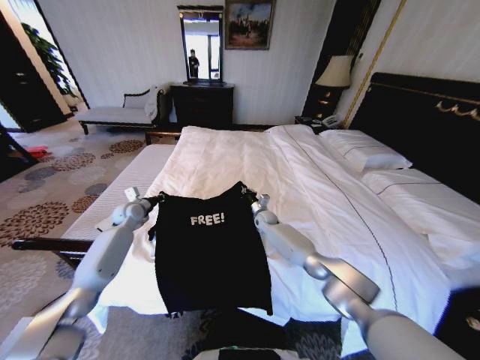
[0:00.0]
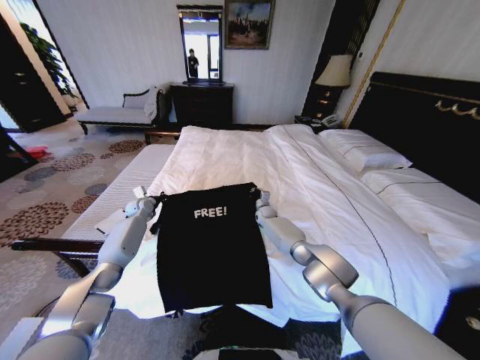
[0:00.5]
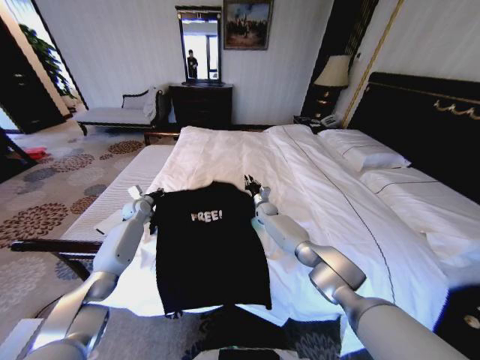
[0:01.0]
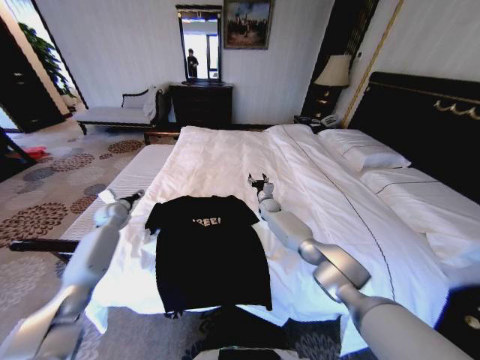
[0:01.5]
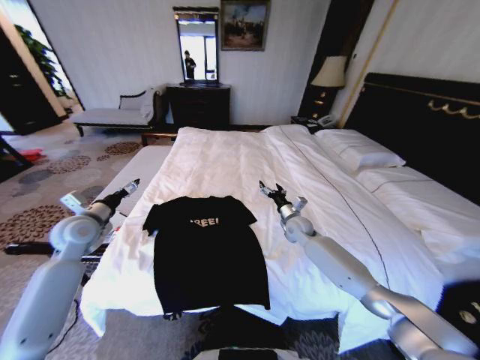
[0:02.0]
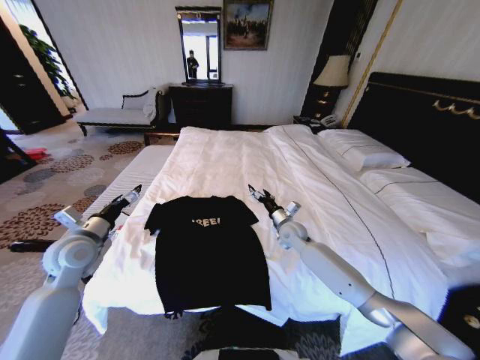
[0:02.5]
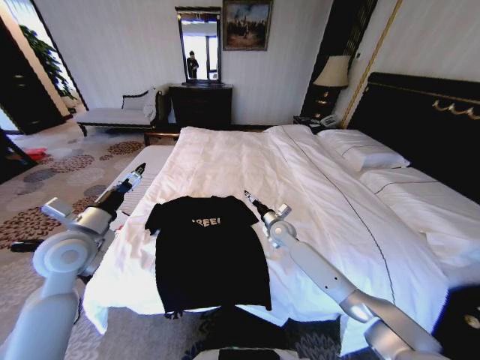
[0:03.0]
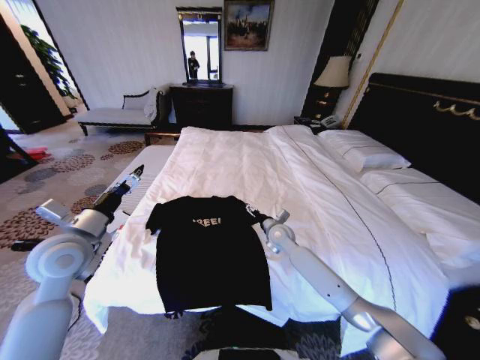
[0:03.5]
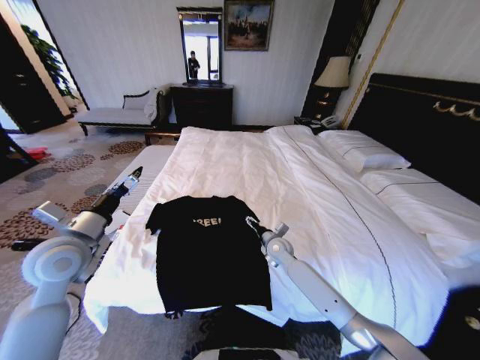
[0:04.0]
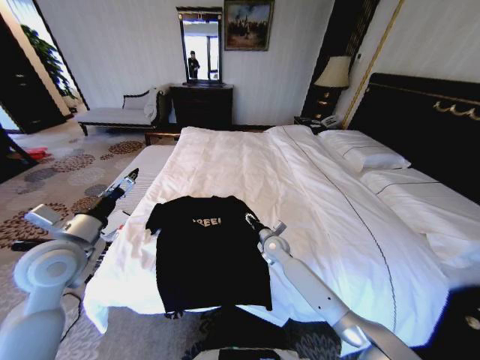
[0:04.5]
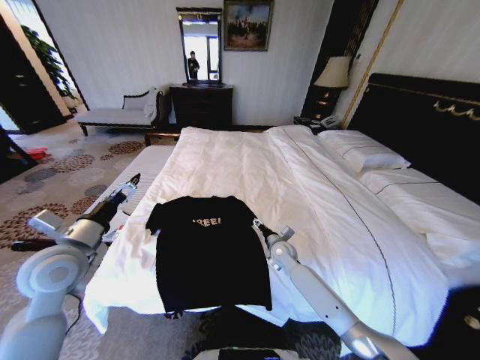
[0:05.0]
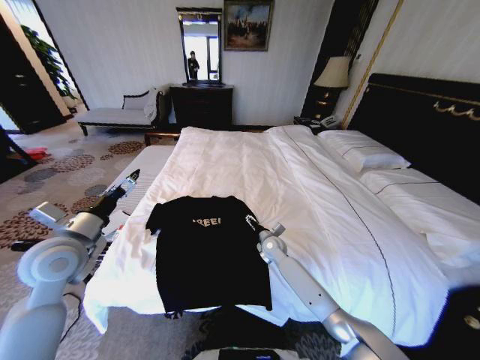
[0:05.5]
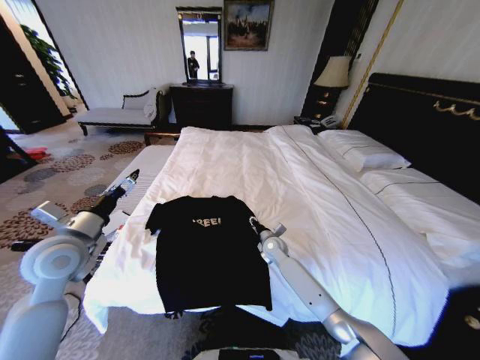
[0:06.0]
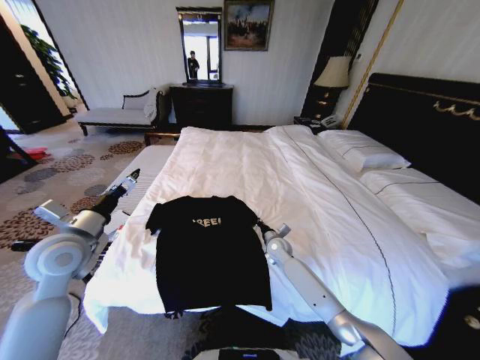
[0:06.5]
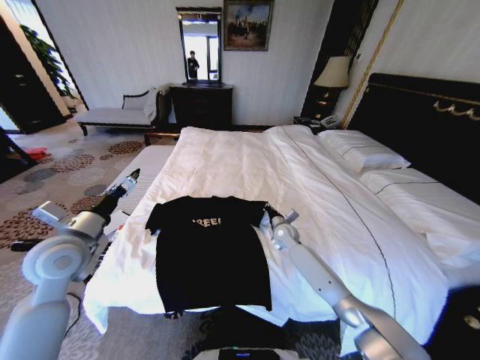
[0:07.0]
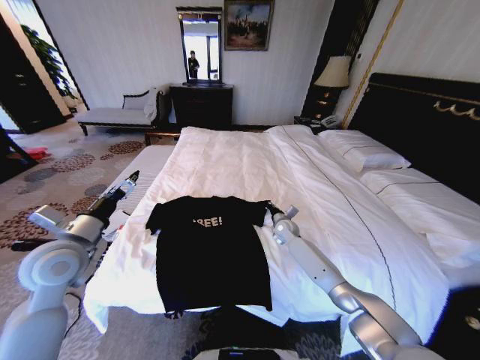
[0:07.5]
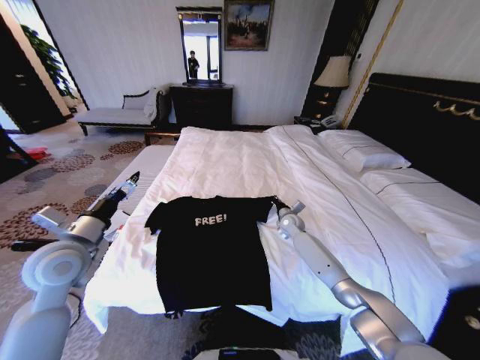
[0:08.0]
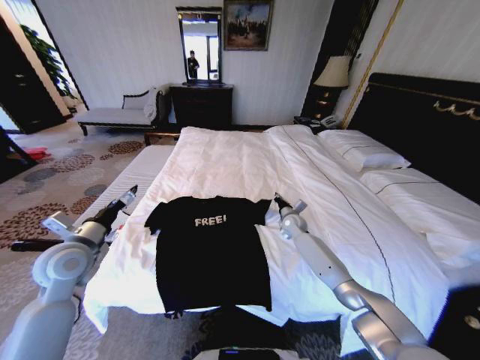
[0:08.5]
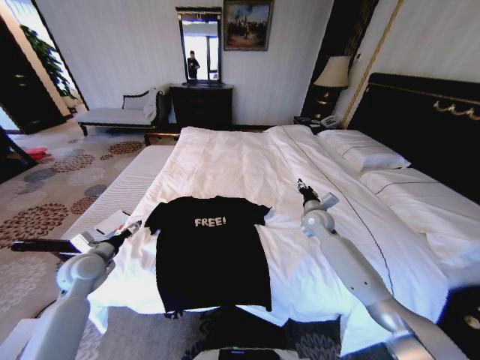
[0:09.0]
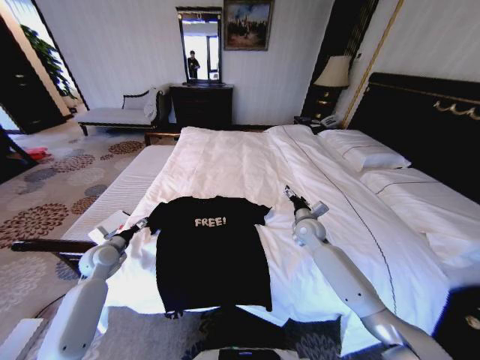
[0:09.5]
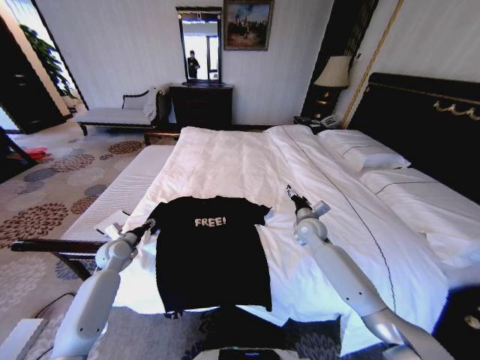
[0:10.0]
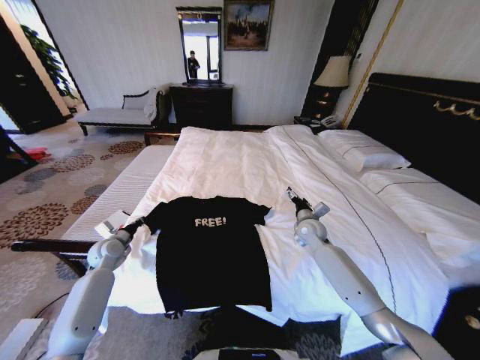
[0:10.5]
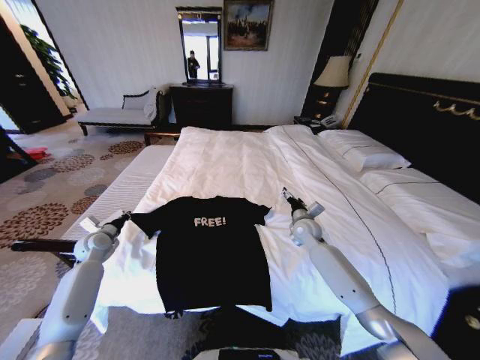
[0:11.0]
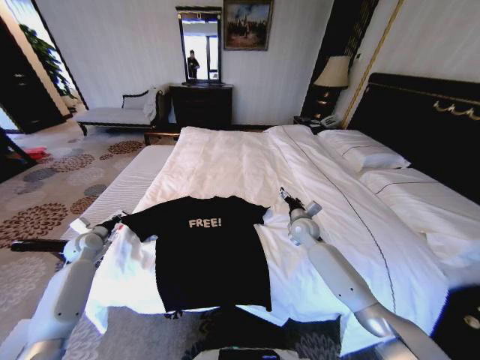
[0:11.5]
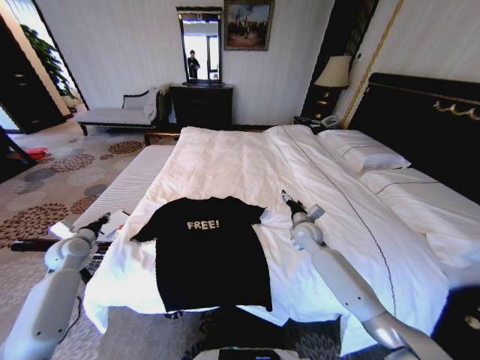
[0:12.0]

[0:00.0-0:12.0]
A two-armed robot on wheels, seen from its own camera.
Task of the whole recording: Fold the clothes on the bed.
0:00.0 to 0:02.0: The right gripper is displaced to the right, backward and upward by approximately 15 cm, and opens its fingers. The left gripper heads backward and upward, covering approximately 15 cm, and opens its fingers.
0:02.0 to 0:04.0: The left gripper heads backward and to the right, covering roughly 10 cm. The right gripper travels to the left, backward and downward by about 10 cm.
0:04.0 to 0:06.0: The right gripper closes.
0:06.0 to 0:08.0: The right gripper is displaced forward and to the right by approximately 10 cm, and closes up.
0:08.0 to 0:10.0: The right gripper heads backward and upward, covering about 10 cm, and opens, while the left gripper travels downward and forward by about 20 cm.
0:10.0 to 0:12.0: The left gripper heads to the left, covering roughly 10 cm, and closes up.

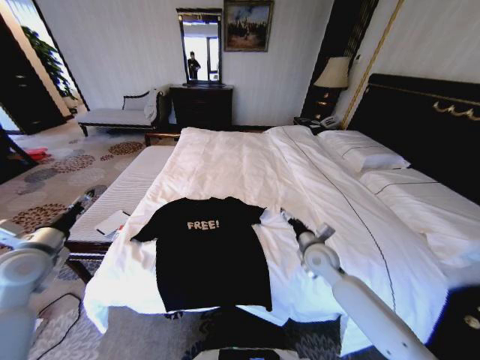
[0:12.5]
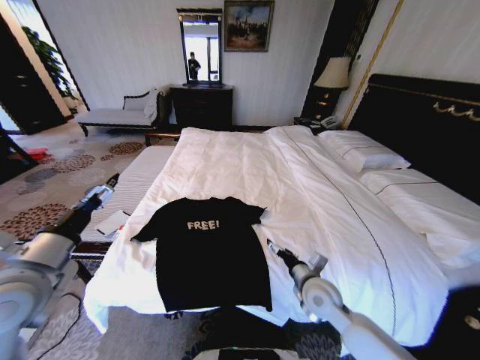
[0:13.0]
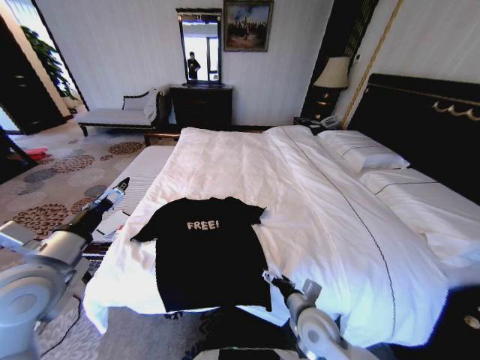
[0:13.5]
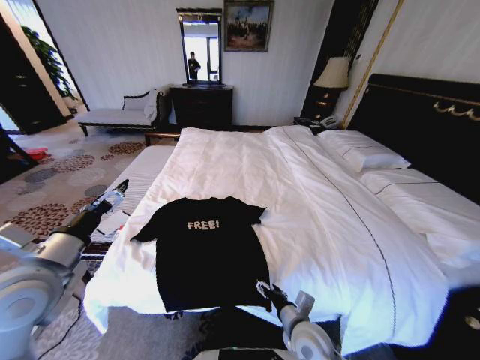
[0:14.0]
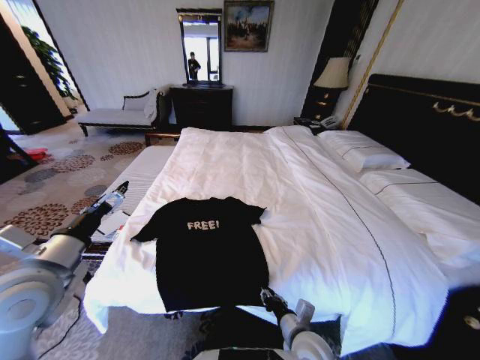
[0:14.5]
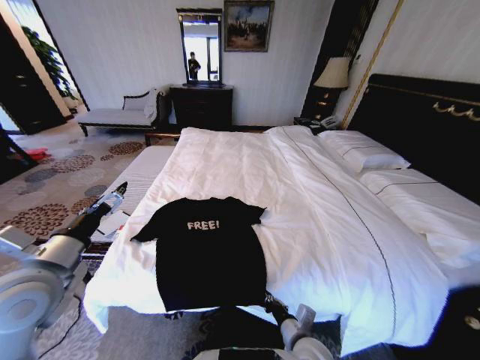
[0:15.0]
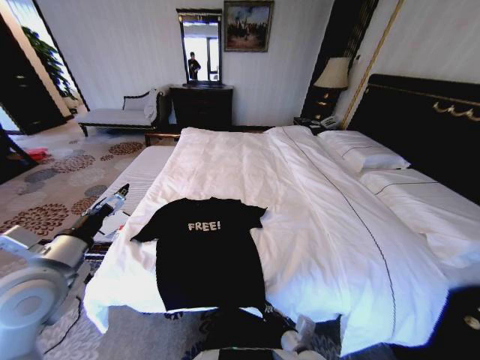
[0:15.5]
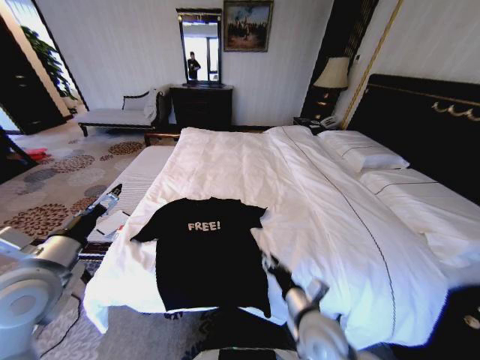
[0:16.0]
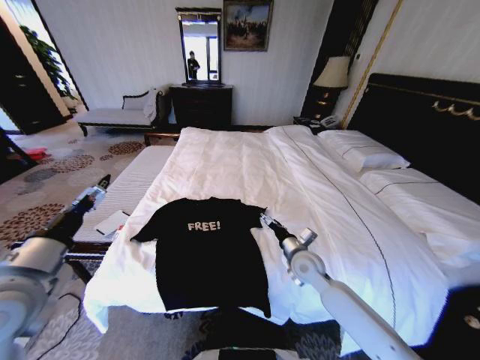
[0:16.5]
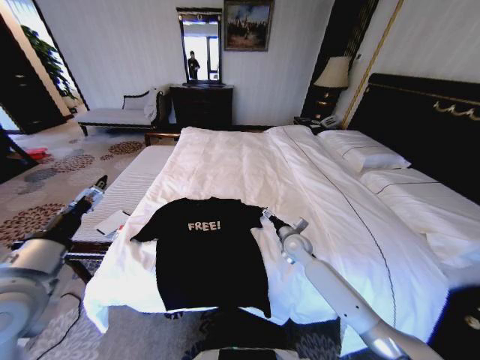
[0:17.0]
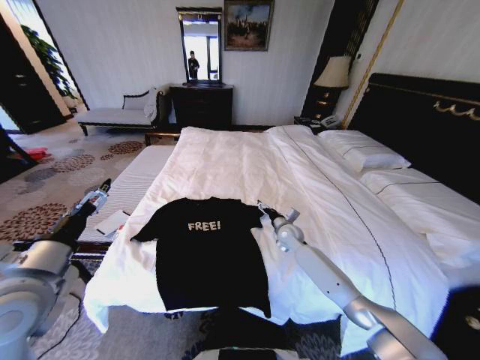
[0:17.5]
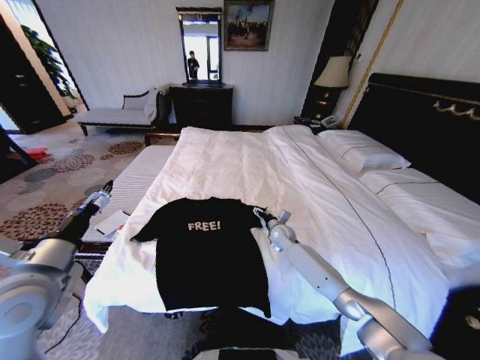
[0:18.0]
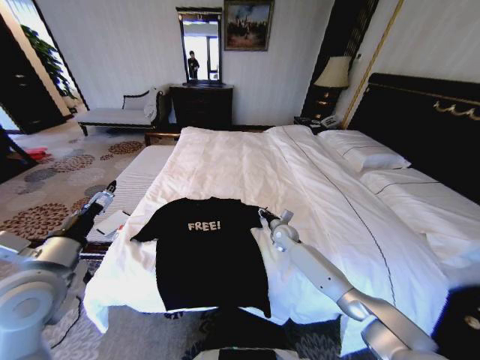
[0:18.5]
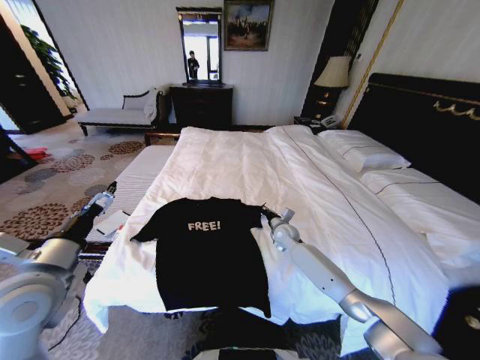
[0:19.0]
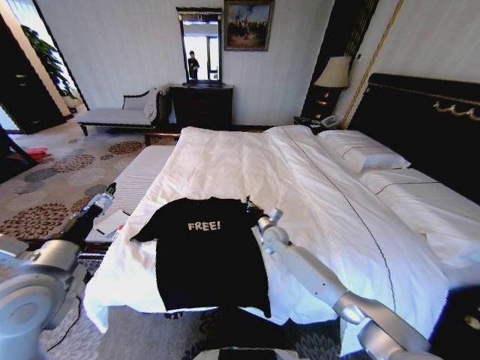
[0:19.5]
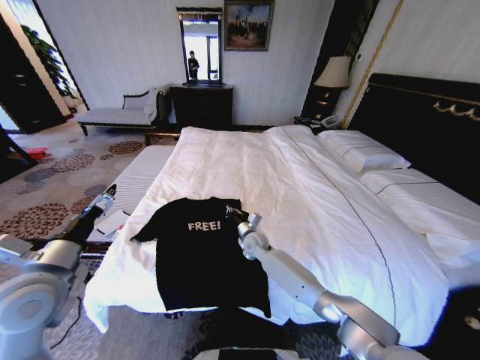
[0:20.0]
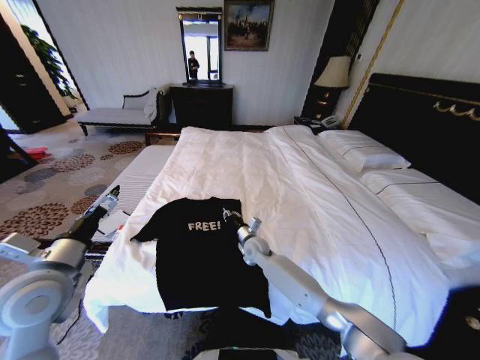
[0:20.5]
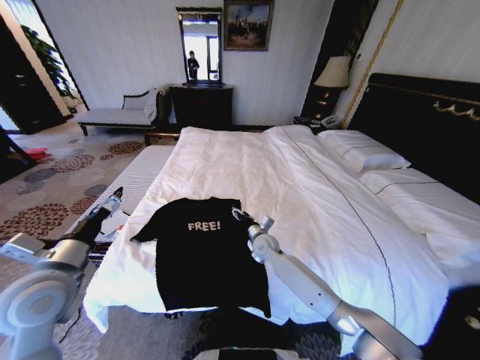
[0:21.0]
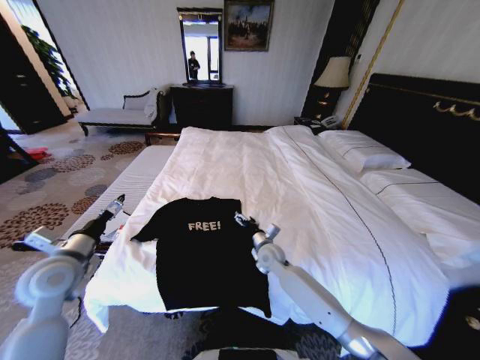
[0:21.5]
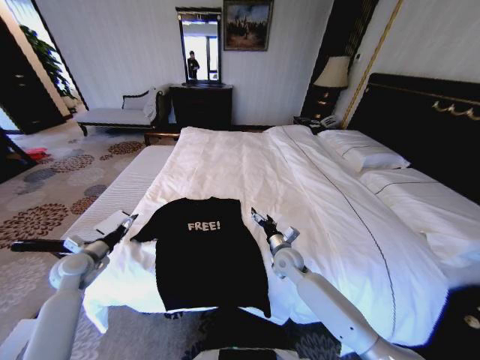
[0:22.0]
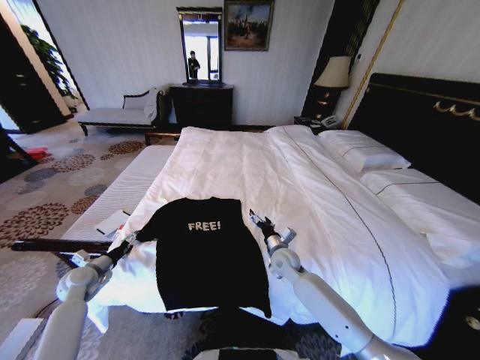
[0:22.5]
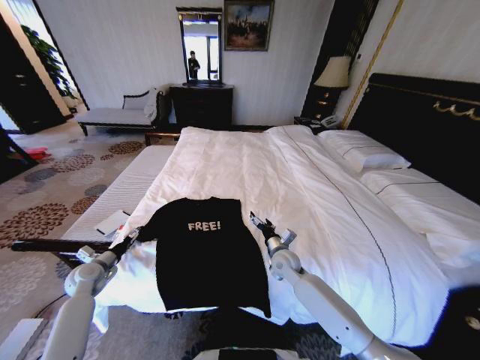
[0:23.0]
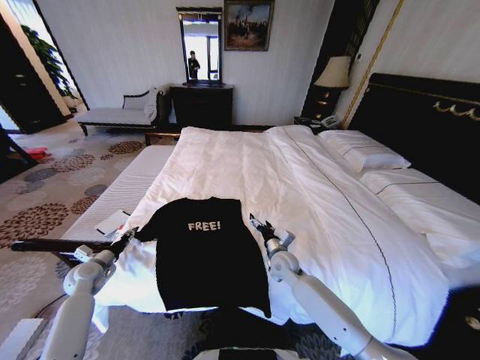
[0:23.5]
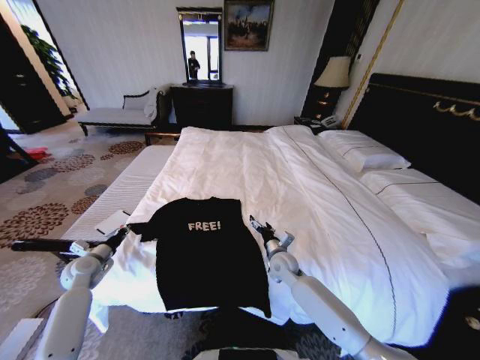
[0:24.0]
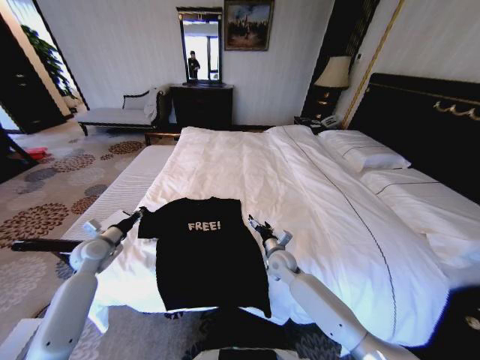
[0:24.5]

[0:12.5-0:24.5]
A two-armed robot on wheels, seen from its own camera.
Task of the whole recording: Fold the clothes on the bed.
0:12.5 to 0:14.5: The right gripper travels backward and to the left by approximately 20 cm, and closes its fingers, while the left gripper is displaced to the right and backward by roughly 10 cm.
0:14.5 to 0:16.5: The right gripper travels forward by about 20 cm, and opens its fingers.
0:16.5 to 0:18.5: The right gripper is displaced forward by approximately 15 cm, and closes.
0:18.5 to 0:20.5: The right gripper shifts approximately 15 cm to the left and backward, and closes up.
0:20.5 to 0:22.5: The right gripper travels to the right and backward by approximately 10 cm, and opens its fingers; the left gripper shifts approximately 25 cm downward, to the left and forward.
0:22.5 to 0:24.5: The left gripper shifts some 10 cm upward and forward, and closes up.

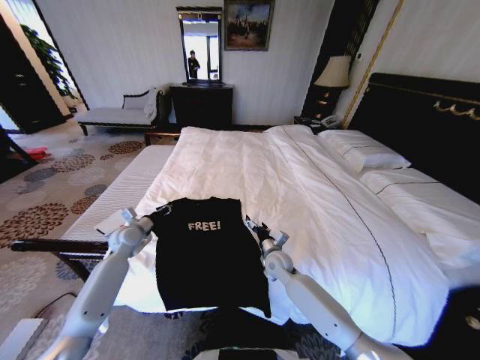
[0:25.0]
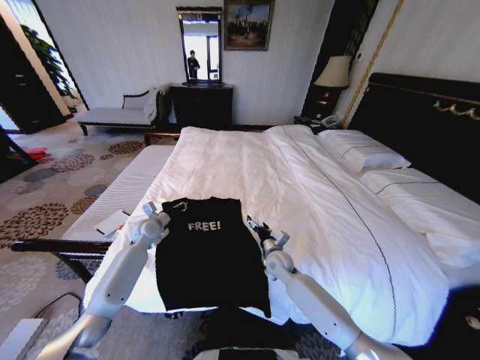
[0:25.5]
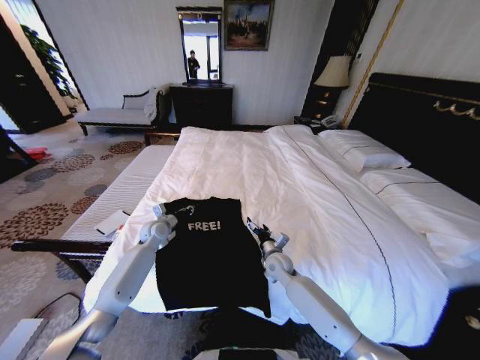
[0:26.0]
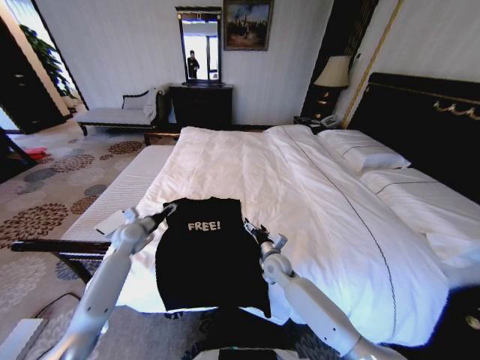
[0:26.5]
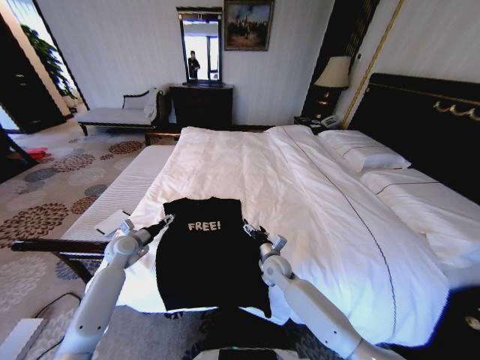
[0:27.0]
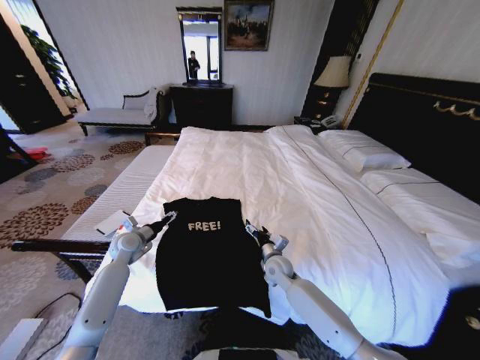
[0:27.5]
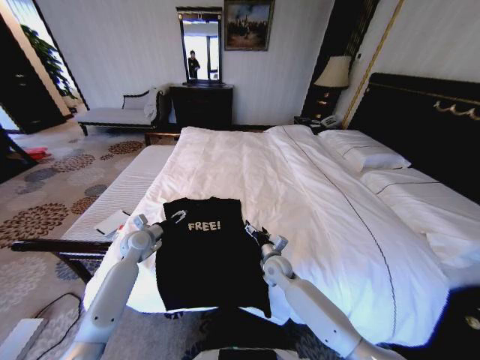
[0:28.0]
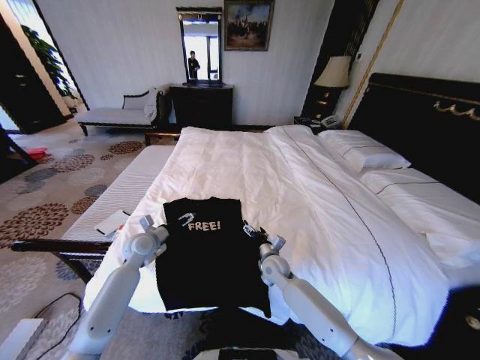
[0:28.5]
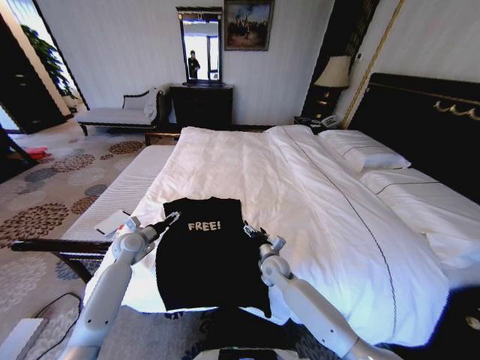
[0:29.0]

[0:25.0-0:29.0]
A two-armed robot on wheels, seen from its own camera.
Task of the whole recording: Fold the clothes on the bed.
0:25.0 to 0:27.0: The left gripper goes to the right and returns, about 5 cm each way, and opens its fingers.
